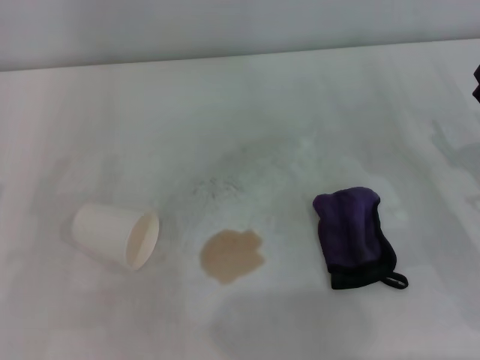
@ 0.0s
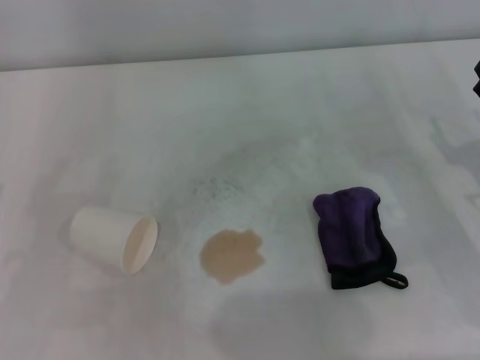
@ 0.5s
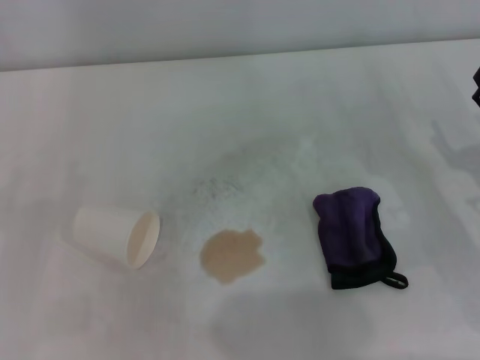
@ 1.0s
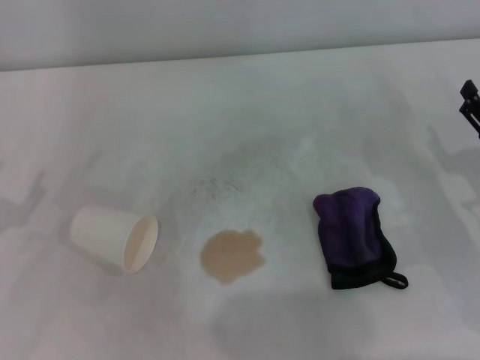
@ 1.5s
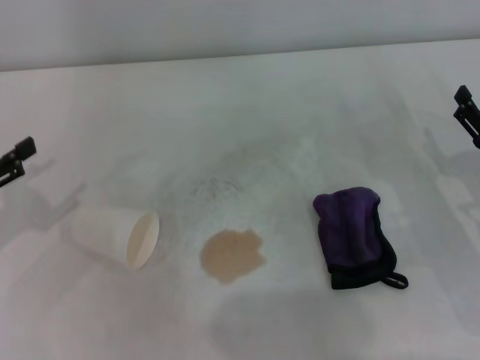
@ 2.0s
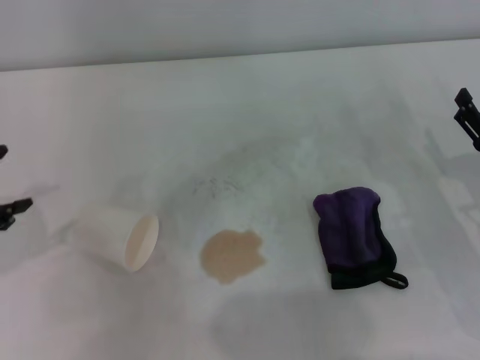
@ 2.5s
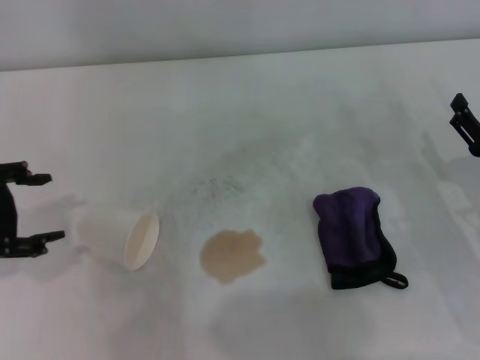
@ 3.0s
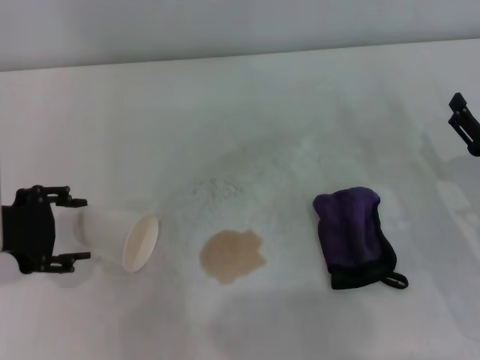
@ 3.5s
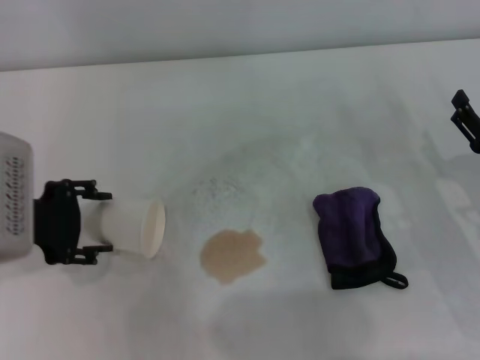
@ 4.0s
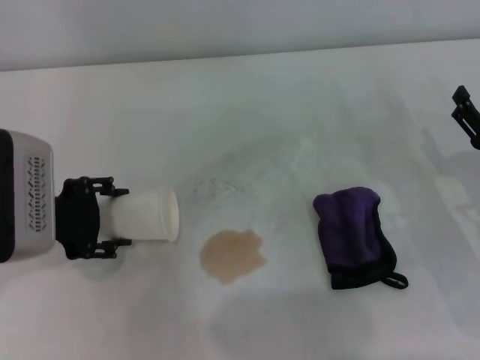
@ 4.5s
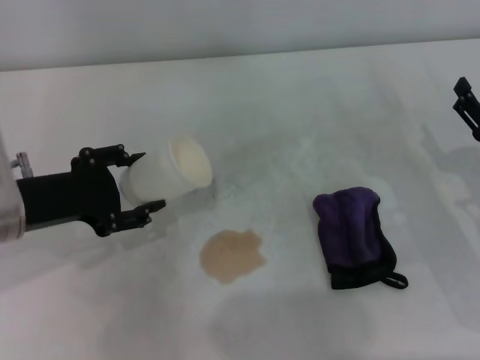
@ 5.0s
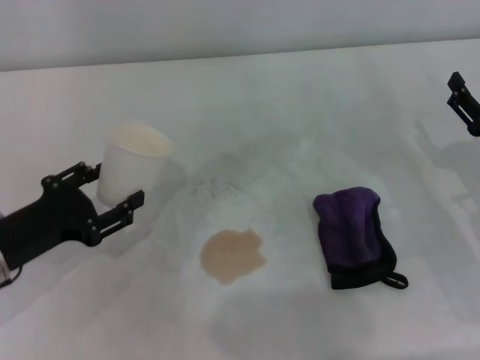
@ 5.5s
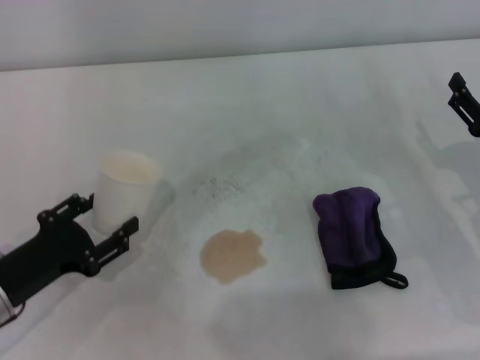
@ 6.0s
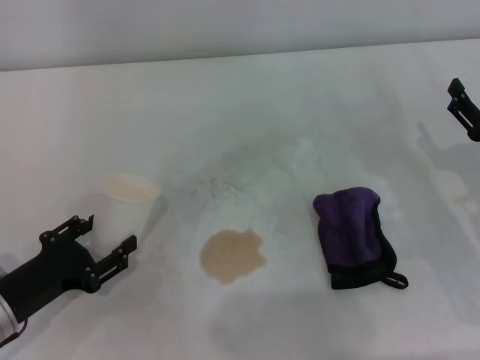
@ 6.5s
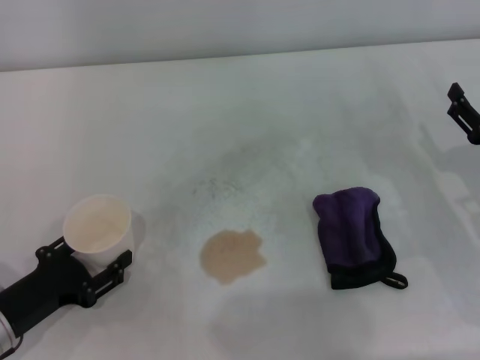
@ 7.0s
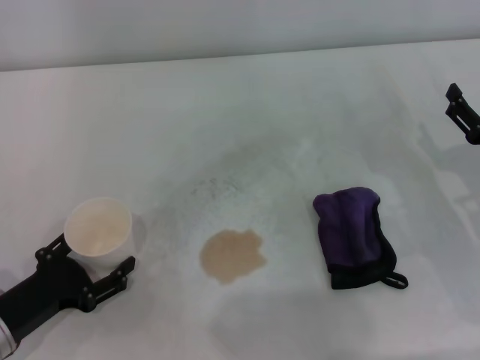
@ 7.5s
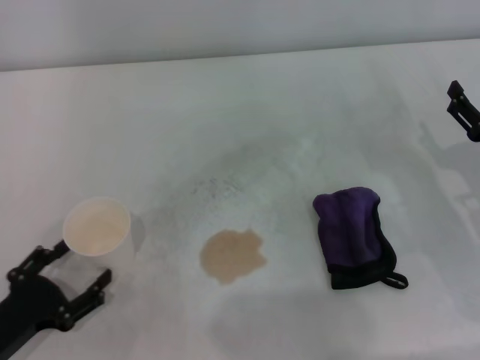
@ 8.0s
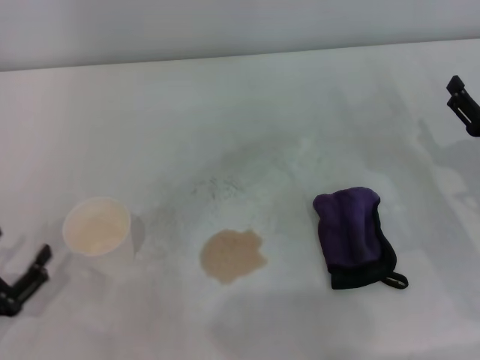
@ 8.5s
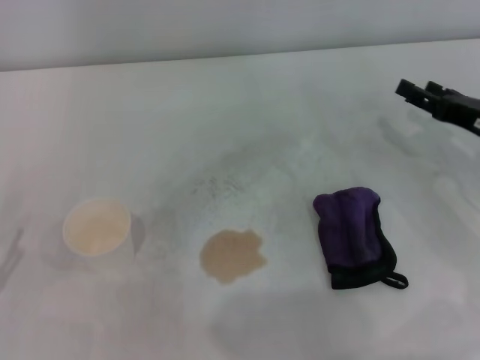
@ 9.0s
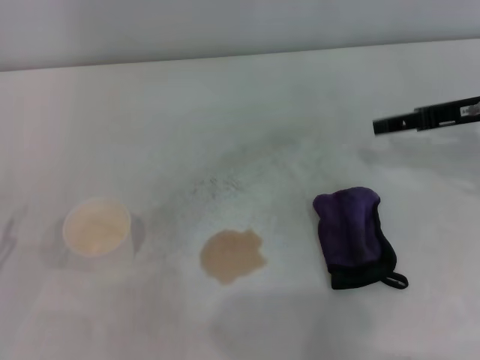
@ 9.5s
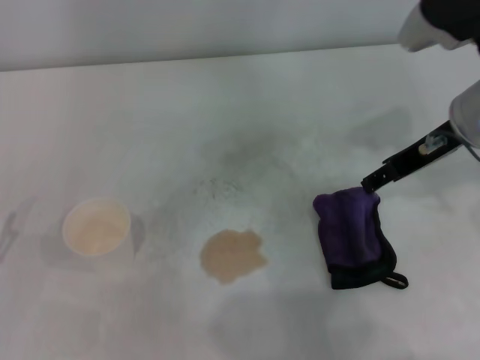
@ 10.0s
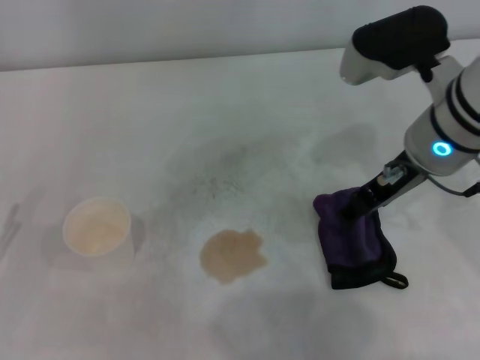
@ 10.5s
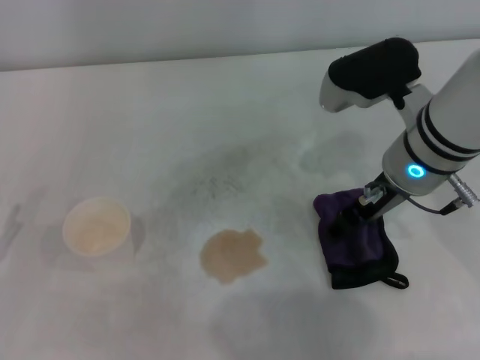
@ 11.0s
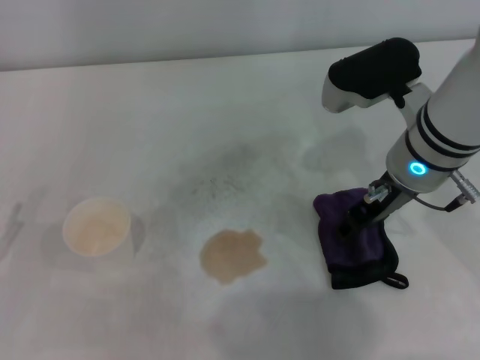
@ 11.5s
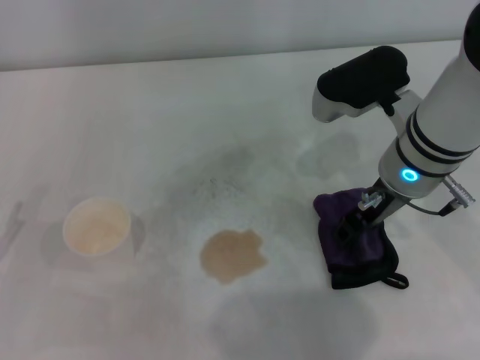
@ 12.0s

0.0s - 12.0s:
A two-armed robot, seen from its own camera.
Step, 0.0s - 4.0s: Grasp the paper cup with the left gripper.
Step, 4.5s - 7.5s: Stand the paper cup upright with the left gripper.
2.0s - 4.0s: The left gripper moves to the right, roughly 10 cm.
4.0s - 6.0s: The left gripper shifts approximately 10 cm downward and backward, and closes.
6.0s - 8.0s: The left gripper shifts roughly 5 cm backward, and opens its fingers.
8.0s - 10.0s: The right gripper is displaced upward, to the left and forward by roughly 20 cm, while the left gripper heads to the left, covering about 5 cm.
10.0s - 12.0s: The right gripper shifts roughly 5 cm to the left.

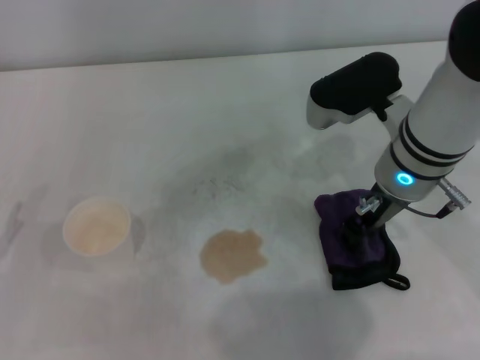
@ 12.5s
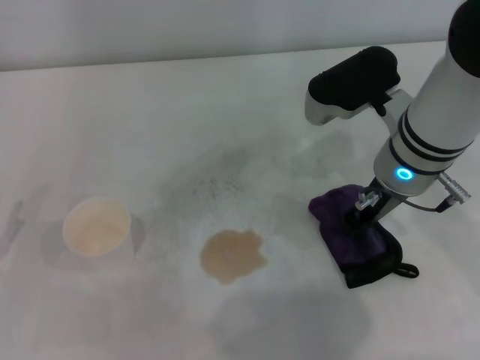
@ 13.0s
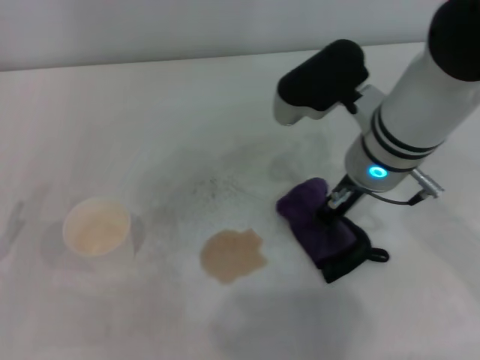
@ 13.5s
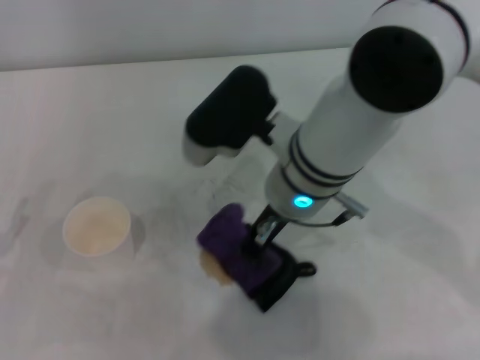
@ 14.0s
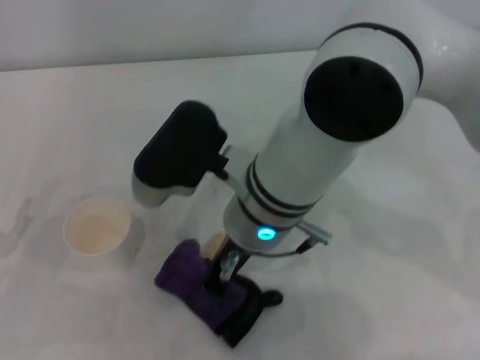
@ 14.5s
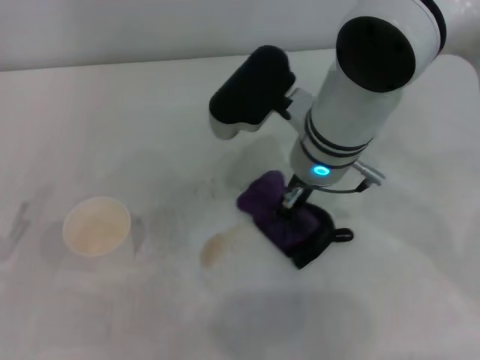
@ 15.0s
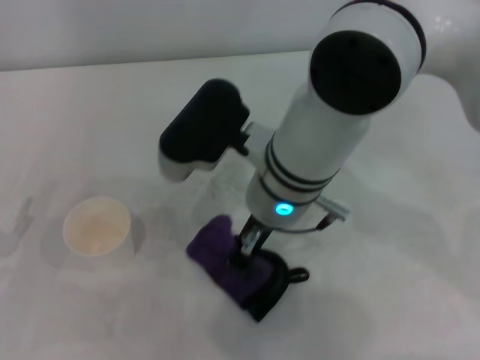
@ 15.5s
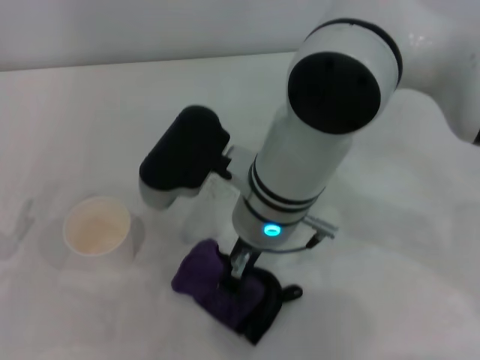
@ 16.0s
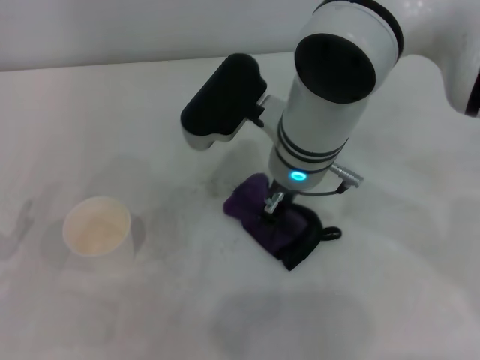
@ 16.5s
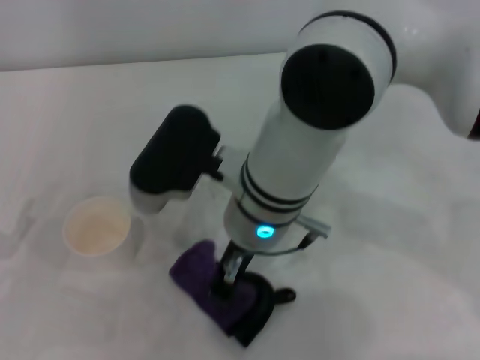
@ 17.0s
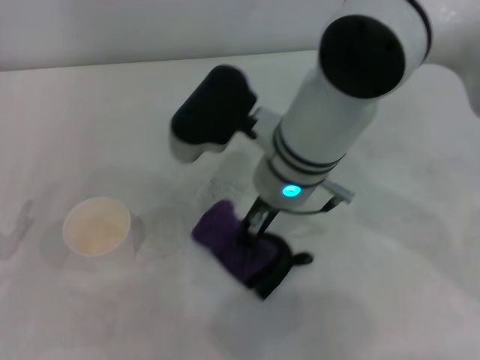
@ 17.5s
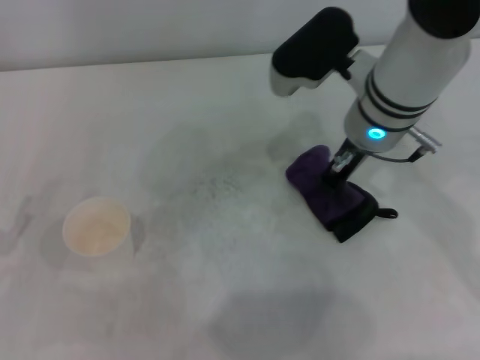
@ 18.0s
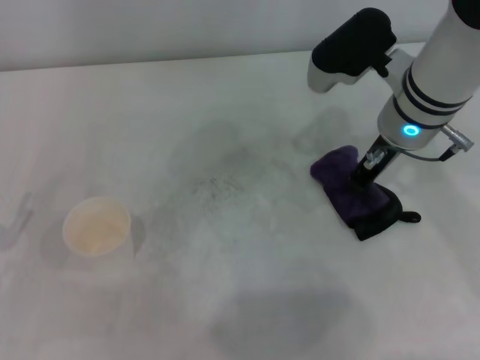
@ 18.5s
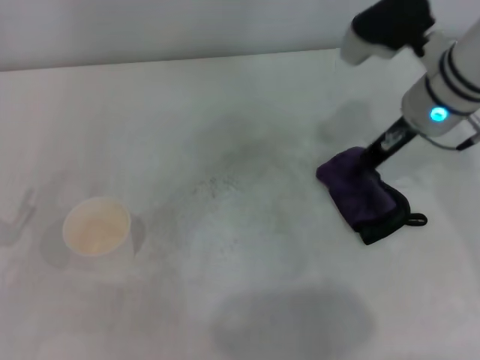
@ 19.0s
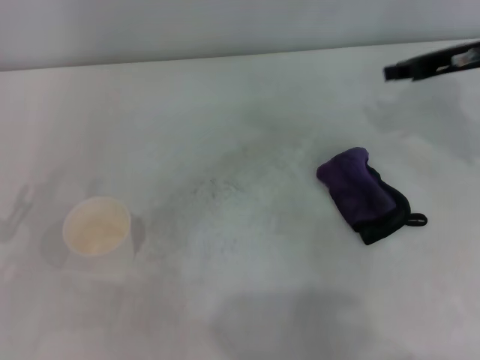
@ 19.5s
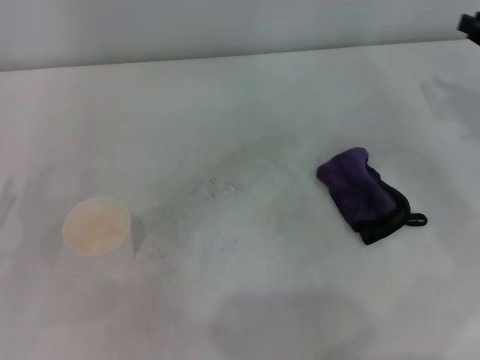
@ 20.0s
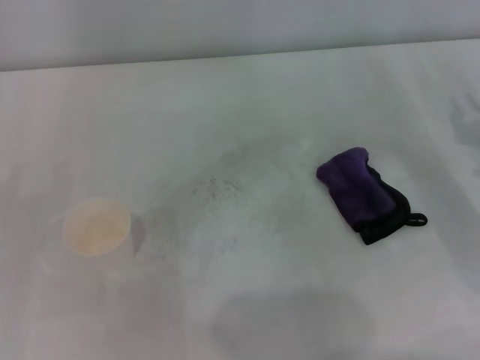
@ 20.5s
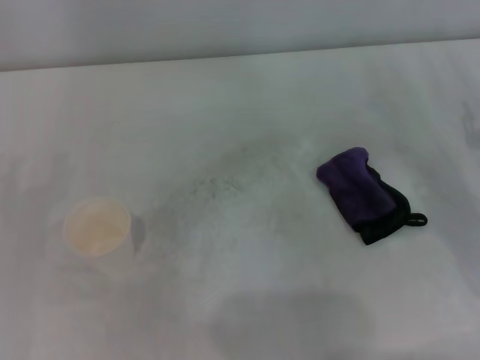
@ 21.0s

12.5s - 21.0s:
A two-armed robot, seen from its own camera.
Step, 13.0s - 17.5s: Wipe the stains off the table with the right gripper.
Step, 18.0s - 18.5s: Place the rag on the table with the right gripper.
12.5s - 14.5s: The right gripper goes about 15 cm to the left, and closes.
14.5s - 16.5s: The right gripper travels forward by about 5 cm.
16.5s - 19.0s: The right gripper moves to the right, approximately 15 cm.
19.0s - 21.0s: The right gripper shifts some 20 cm to the right, backward and downward.
